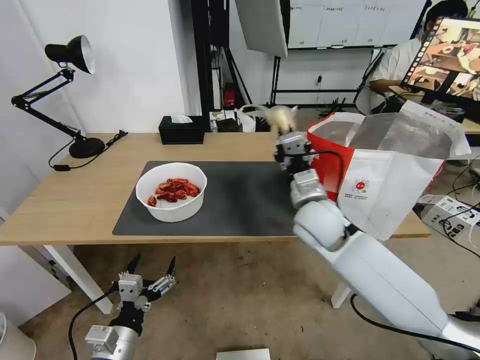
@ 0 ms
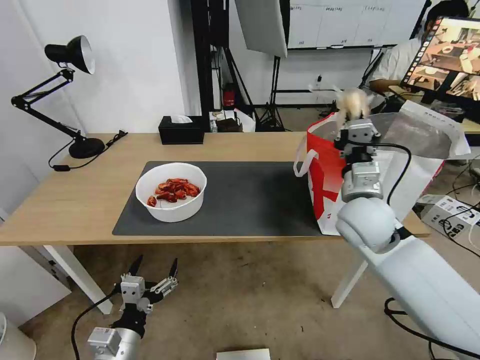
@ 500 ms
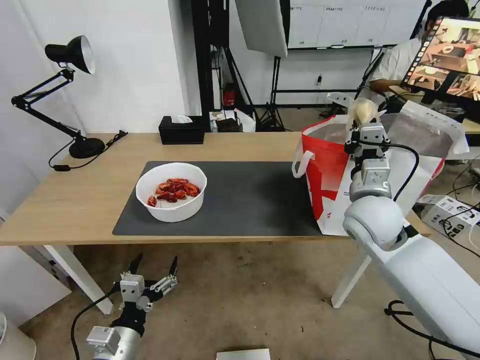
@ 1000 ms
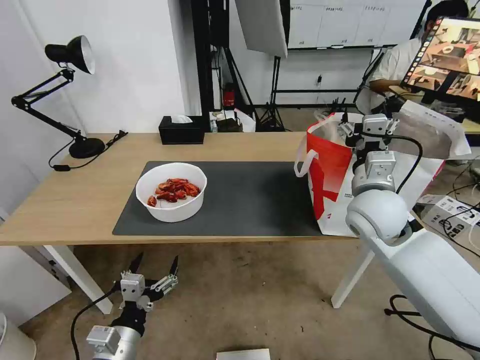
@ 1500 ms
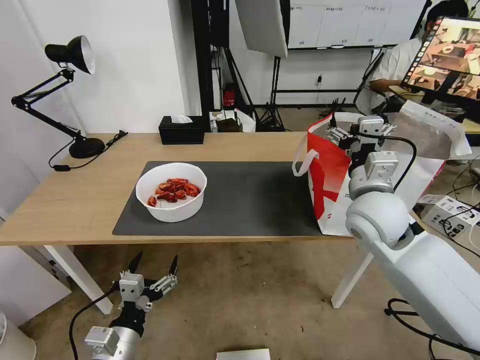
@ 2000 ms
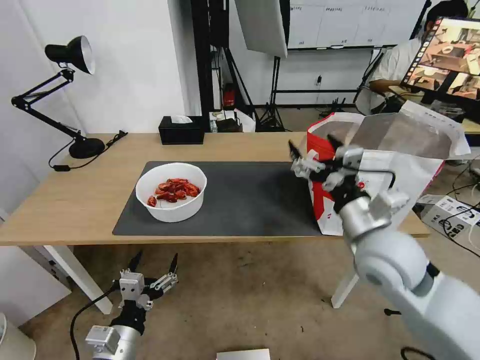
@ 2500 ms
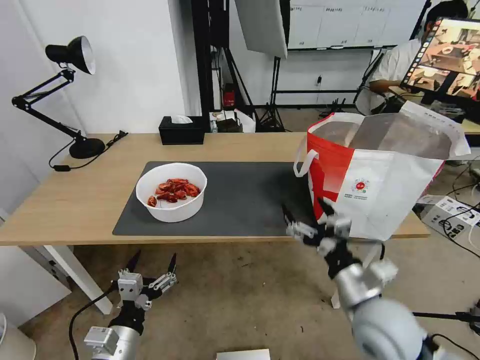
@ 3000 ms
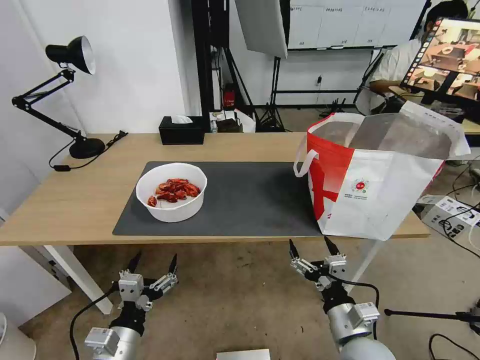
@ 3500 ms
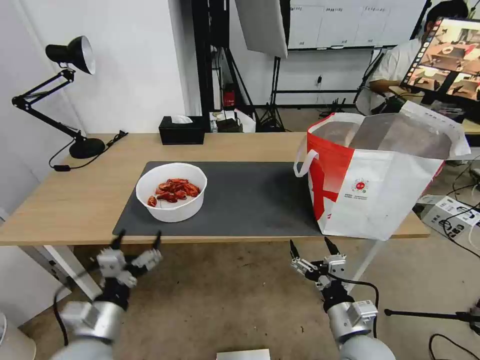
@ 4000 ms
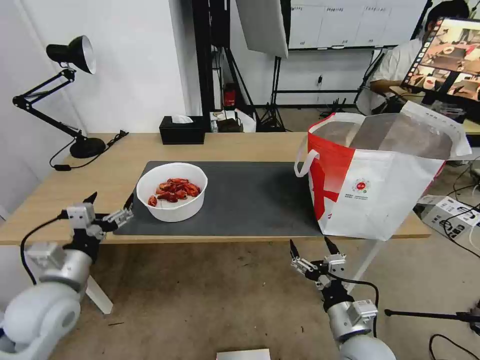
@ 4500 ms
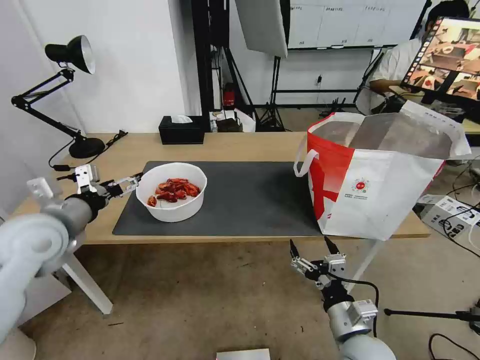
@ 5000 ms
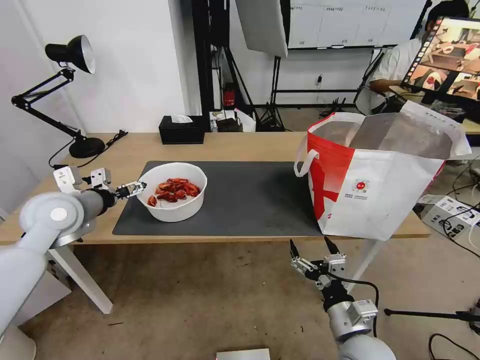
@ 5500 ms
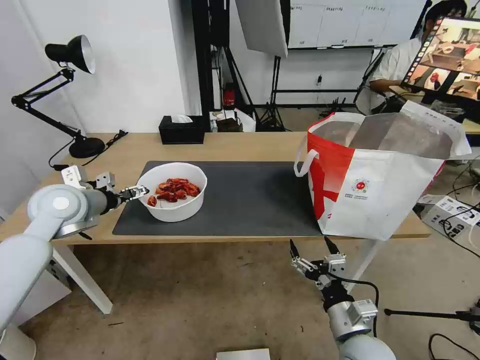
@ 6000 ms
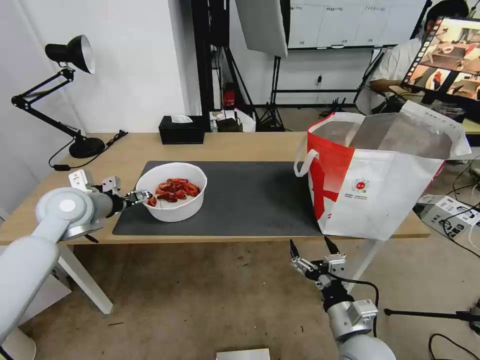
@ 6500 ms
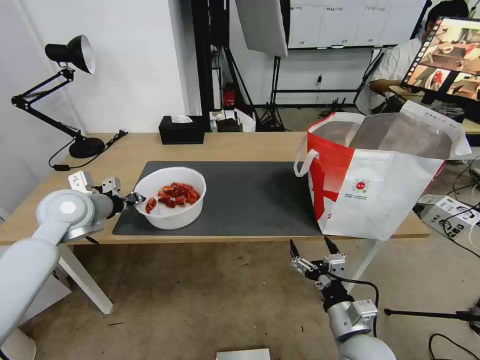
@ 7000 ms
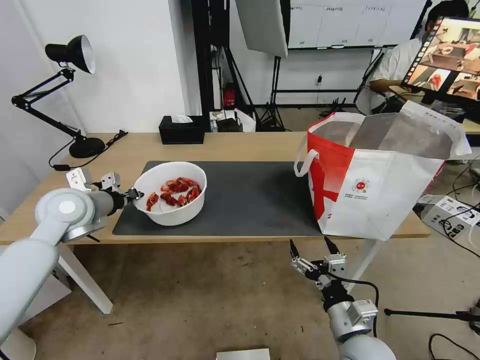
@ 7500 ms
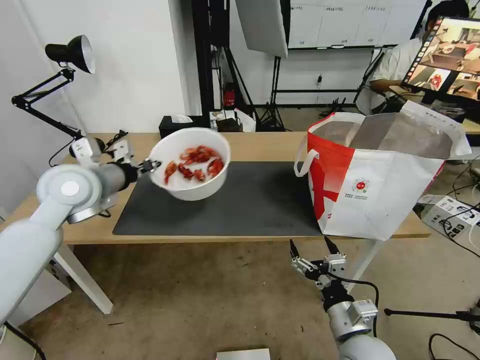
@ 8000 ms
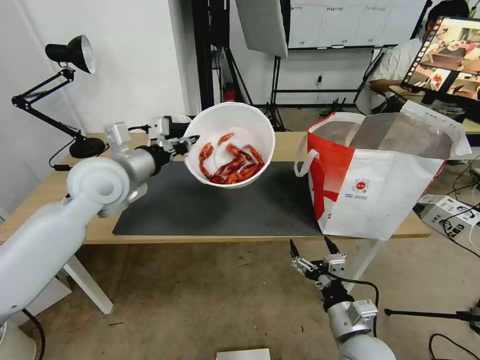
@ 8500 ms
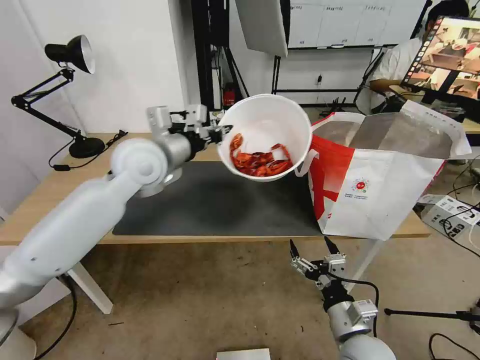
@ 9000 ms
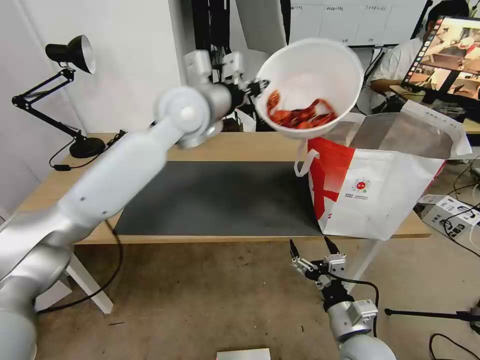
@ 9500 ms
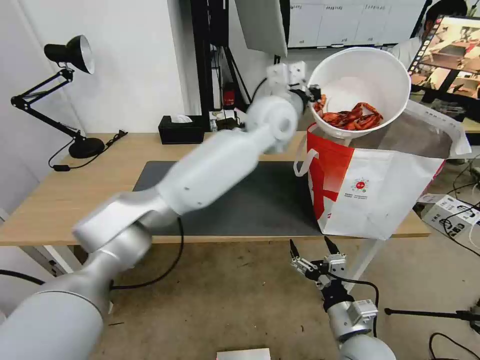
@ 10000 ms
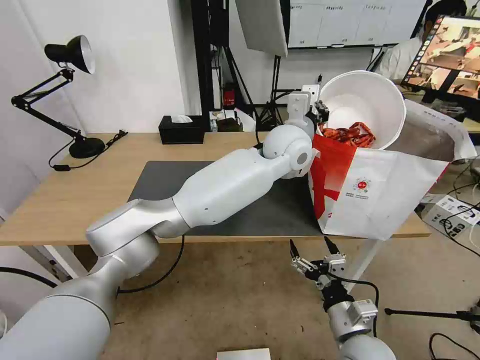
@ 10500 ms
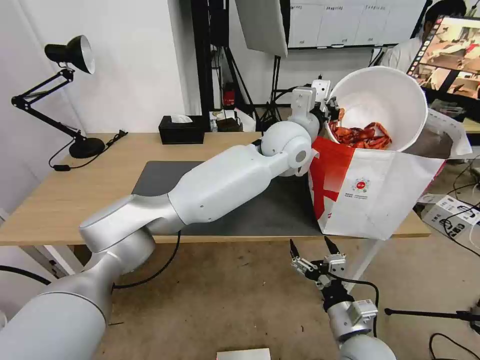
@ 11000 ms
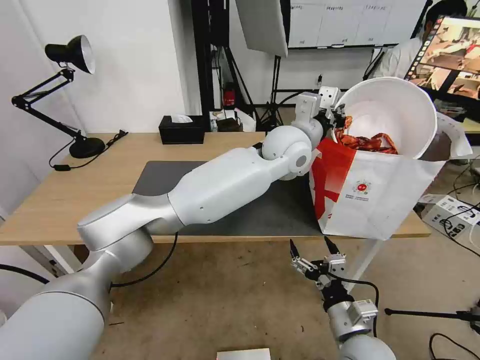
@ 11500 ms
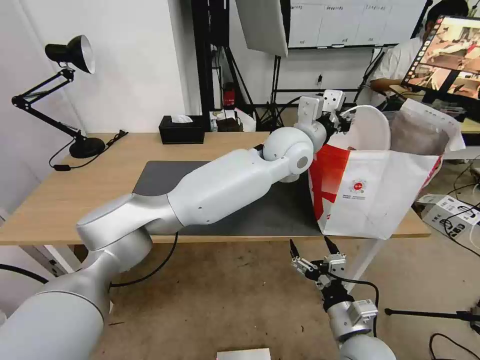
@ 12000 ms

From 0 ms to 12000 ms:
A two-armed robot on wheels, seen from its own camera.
Task of the whole recording: Pick up the trash from the table and place it into the takeout bag.
From 0 ms to 2000 ms: The right gripper shifts approximately 10 cm to the right and upward, and opens its fingers.
From 2000 ms to 4000 ms: The left gripper moves approximately 5 cm. The right gripper shifts about 30 cm downward and backward.
From 4000 ms to 6000 ms: The left gripper heads forward and upward, covering approximately 30 cm.
From 6000 ms to 8000 ms: The left gripper is displaced to the right and upward by roughly 10 cm, and closes up.
From 8000 ms to 10000 ms: The left gripper heads to the right, covering roughly 35 cm.
From 10000 ms to 12000 ms: The left gripper moves some 5 cm.

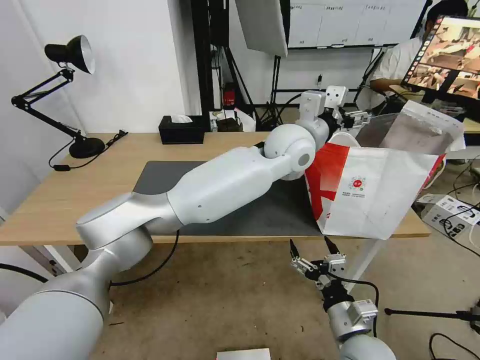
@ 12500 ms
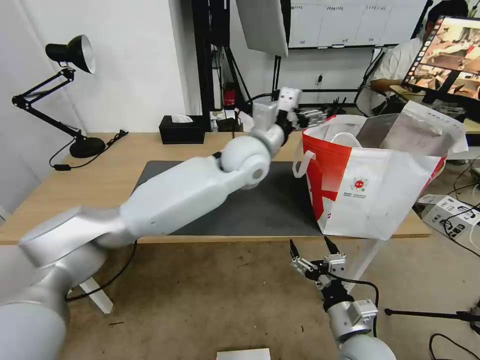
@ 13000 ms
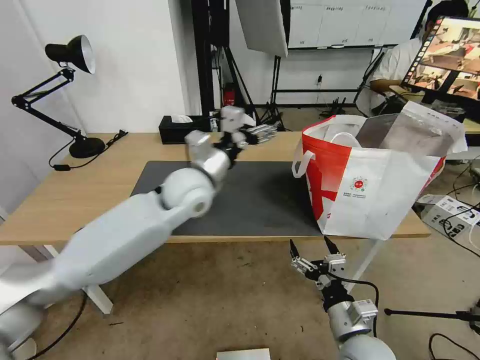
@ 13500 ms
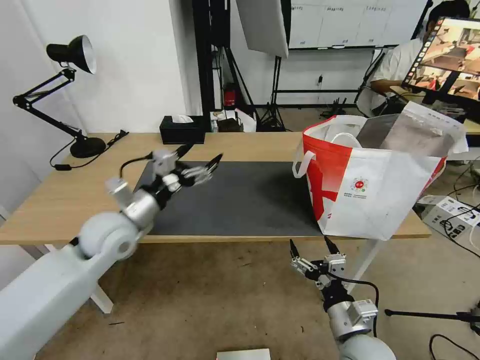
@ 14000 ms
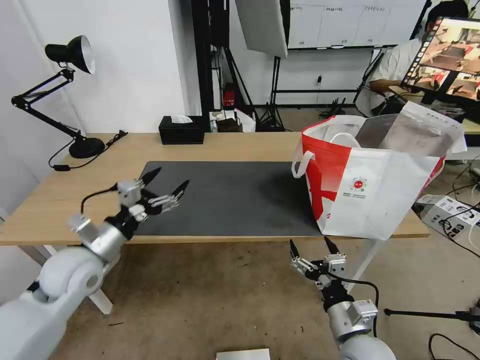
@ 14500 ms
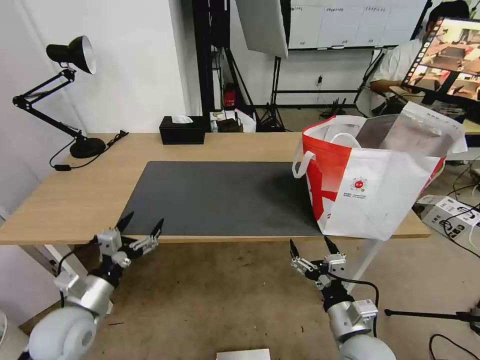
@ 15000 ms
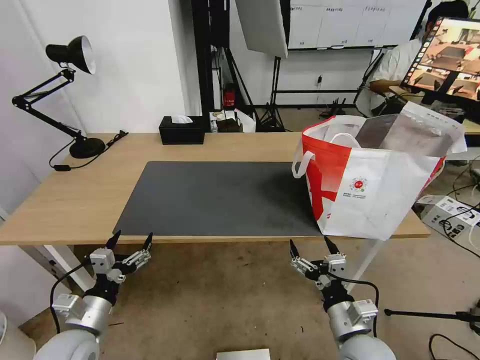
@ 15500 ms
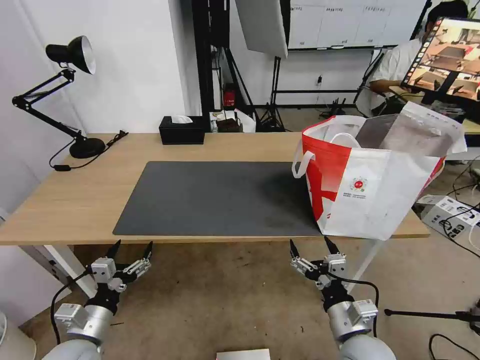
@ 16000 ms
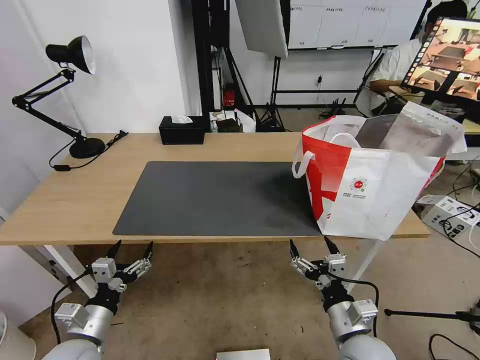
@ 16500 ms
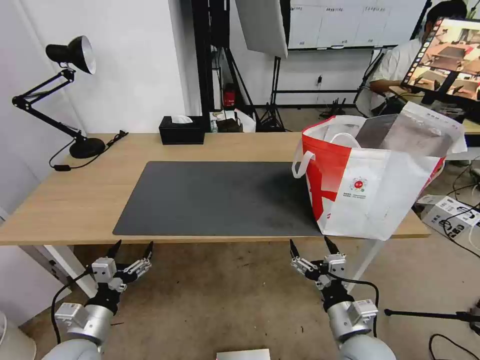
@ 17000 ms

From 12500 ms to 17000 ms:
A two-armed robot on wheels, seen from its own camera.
Task of the whole recording: Pick up the trash from the table and place it into the takeout bag.
From 12500 ms to 14500 ms: The left gripper travels to the left and backward by roughly 50 cm.
From 14500 ms to 17000 ms: The left gripper shifts about 20 cm backward and downward.

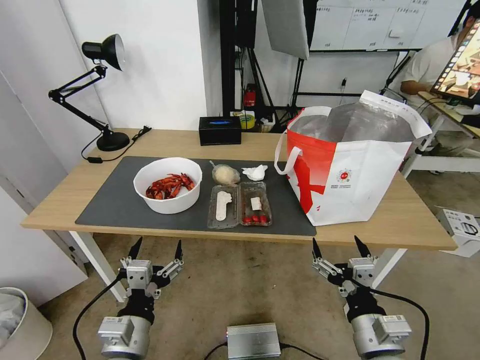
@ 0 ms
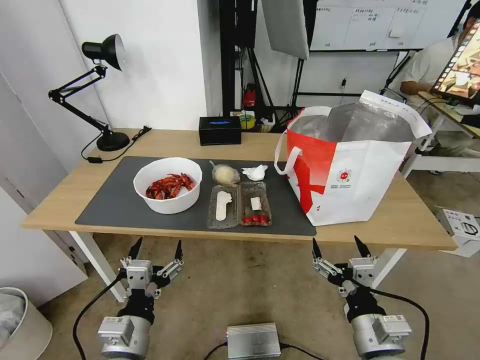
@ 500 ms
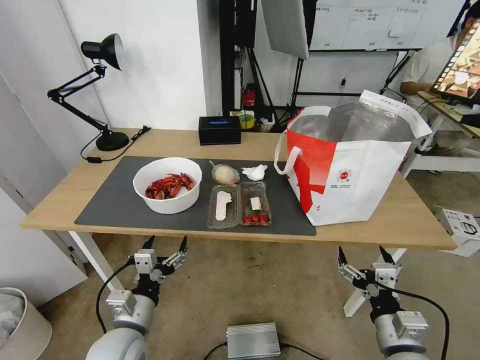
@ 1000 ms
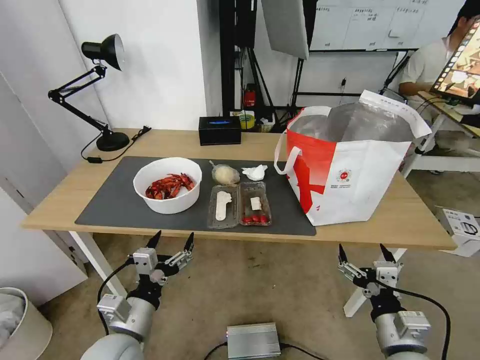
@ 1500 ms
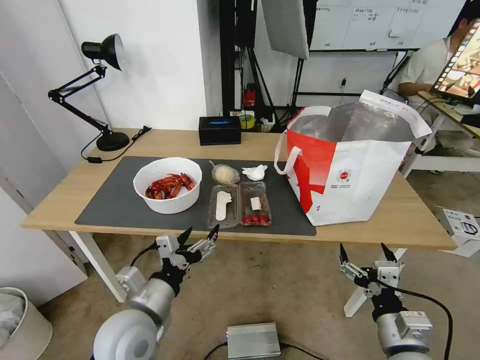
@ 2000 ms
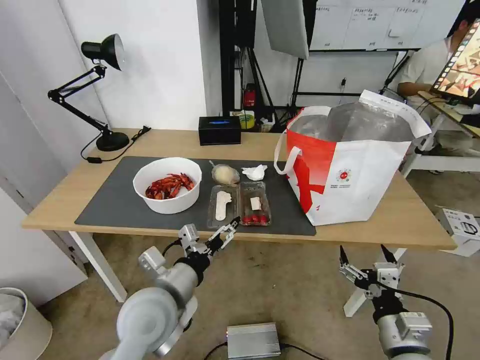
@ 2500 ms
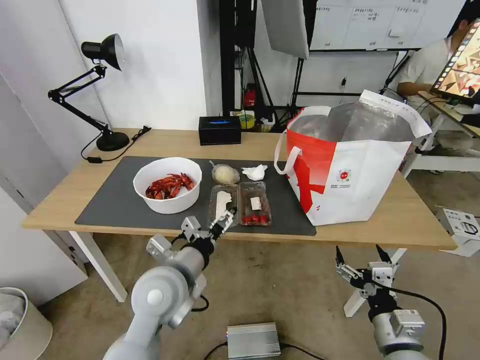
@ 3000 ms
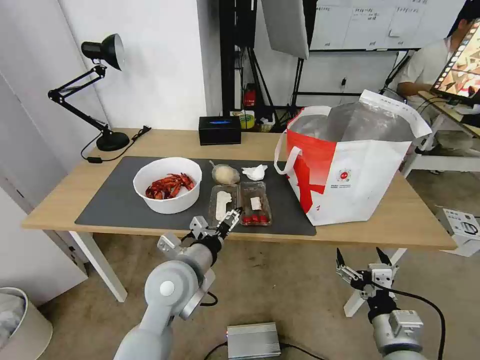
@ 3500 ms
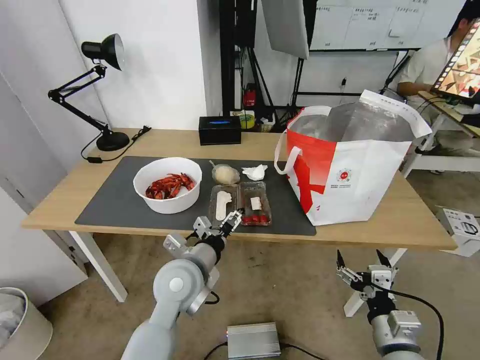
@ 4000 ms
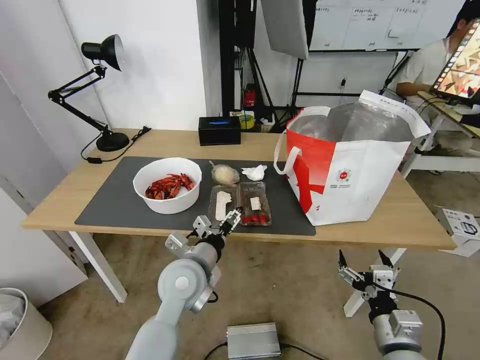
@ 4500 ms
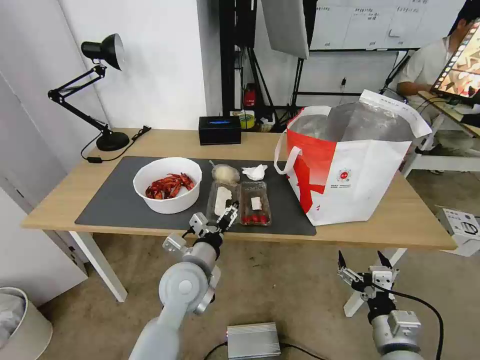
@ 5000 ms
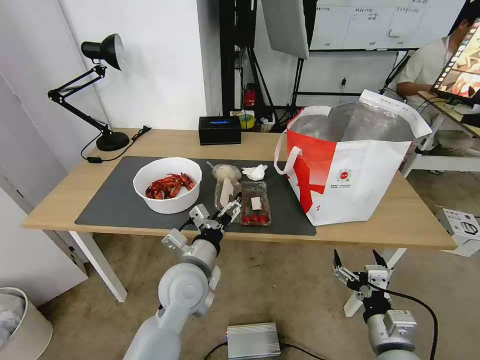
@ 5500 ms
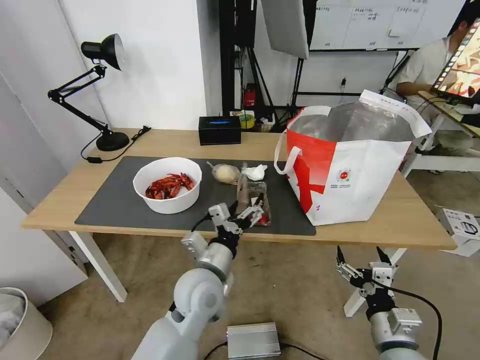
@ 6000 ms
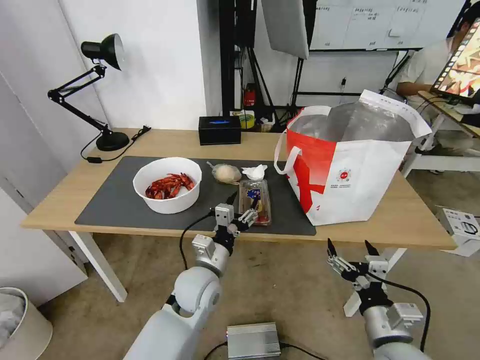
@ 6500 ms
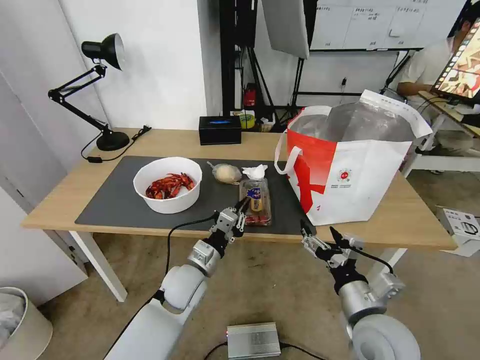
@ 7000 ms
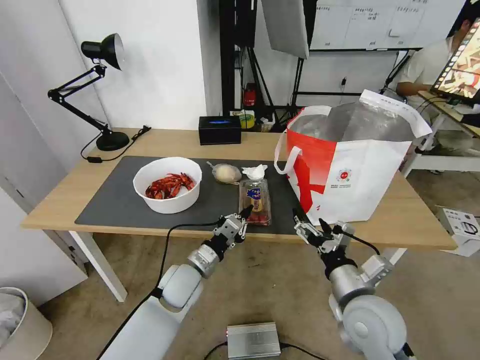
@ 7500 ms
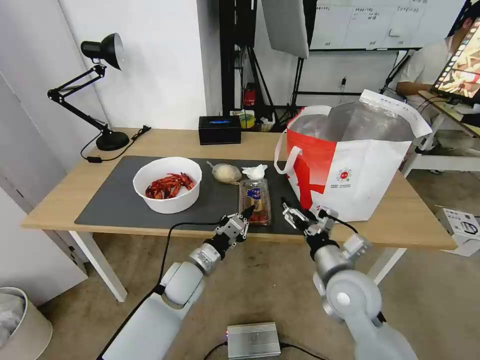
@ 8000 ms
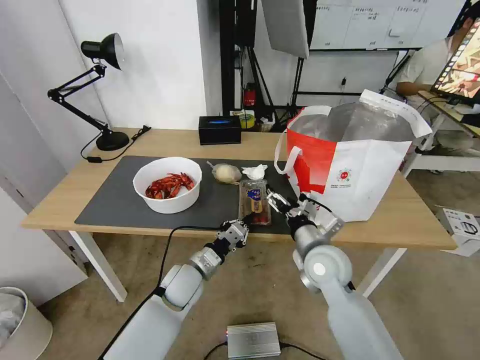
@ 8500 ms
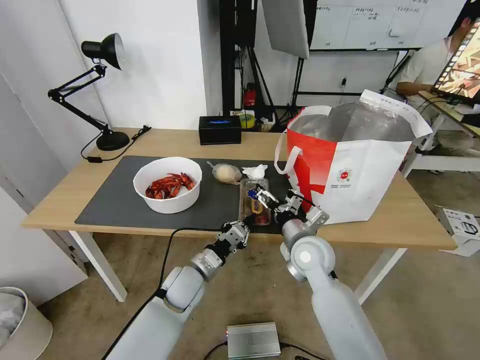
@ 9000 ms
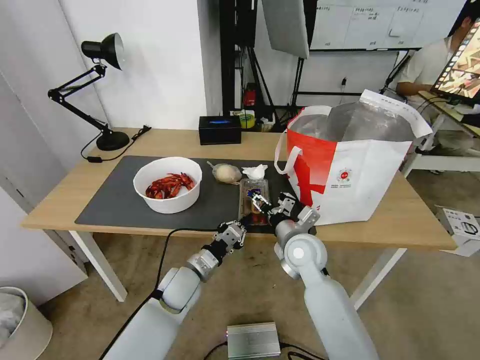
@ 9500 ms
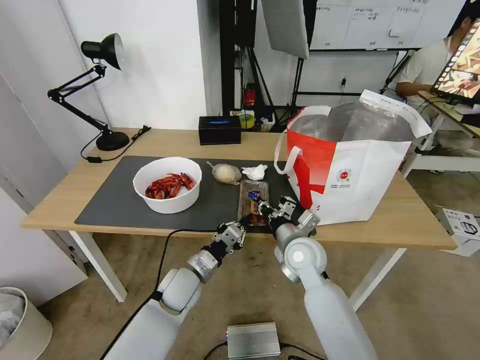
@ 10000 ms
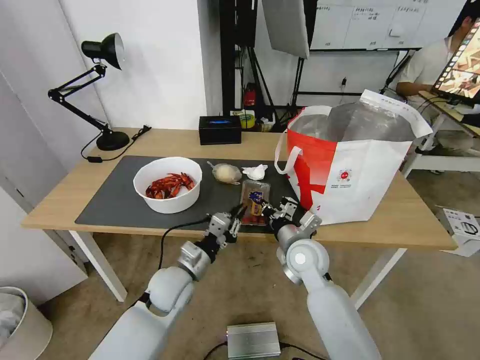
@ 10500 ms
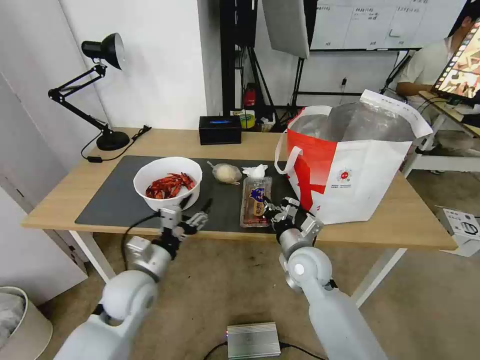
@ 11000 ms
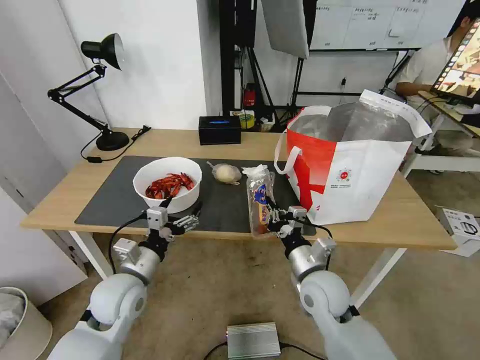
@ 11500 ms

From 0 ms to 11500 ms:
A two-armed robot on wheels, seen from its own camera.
Task of the whole recording: Pick up the trash from the table and place it into the takeout bag.
From 2000 ms to 4000 ms: The left gripper shifts about 15 cm forward and to the right.
From 6000 ms to 7500 ms: The left gripper is displaced downward and to the left by approximately 10 cm, and closes up, while the right gripper travels forward, upward and to the left by approximately 10 cm.
From 7500 ms to 9500 ms: The right gripper shifts approximately 20 cm forward and to the left.
From 9500 ms to 11500 ms: The left gripper is displaced to the left, upward and backward by roughly 15 cm, and opens up. Meanwhile the right gripper goes approximately 10 cm backward, and closes up.
